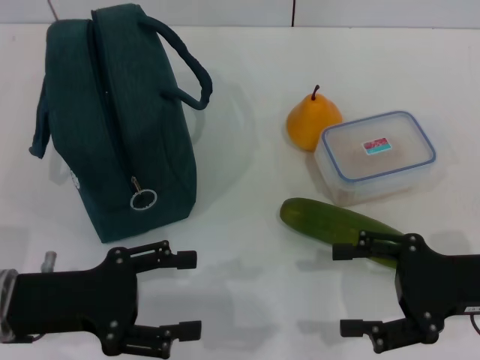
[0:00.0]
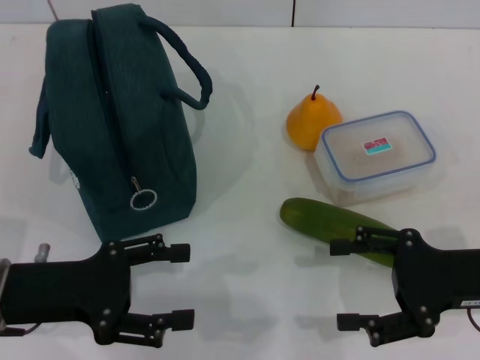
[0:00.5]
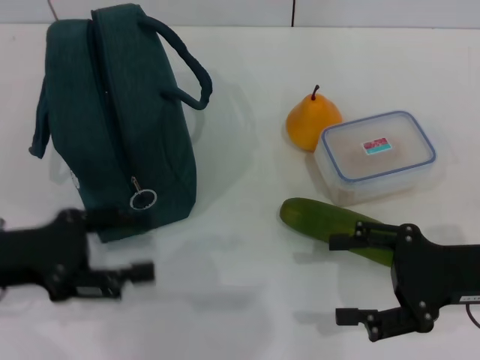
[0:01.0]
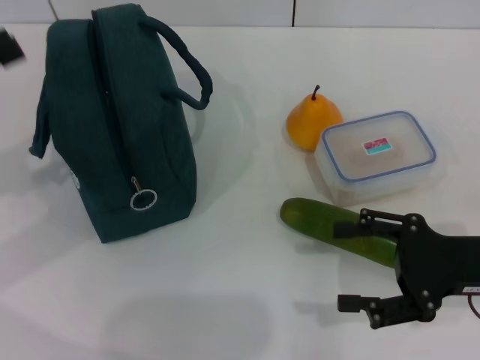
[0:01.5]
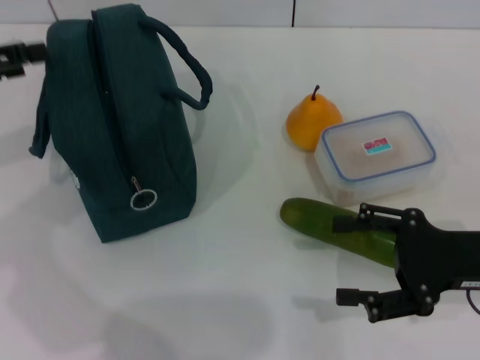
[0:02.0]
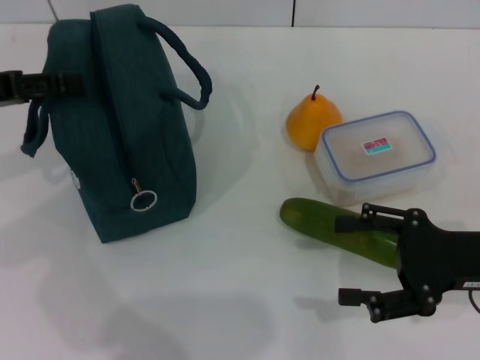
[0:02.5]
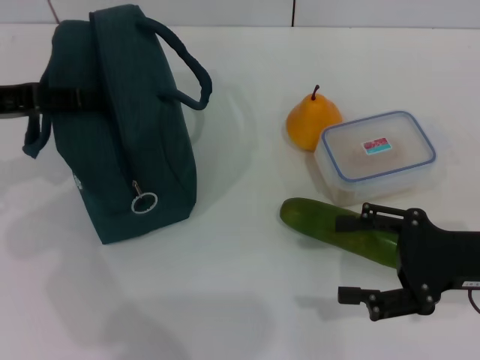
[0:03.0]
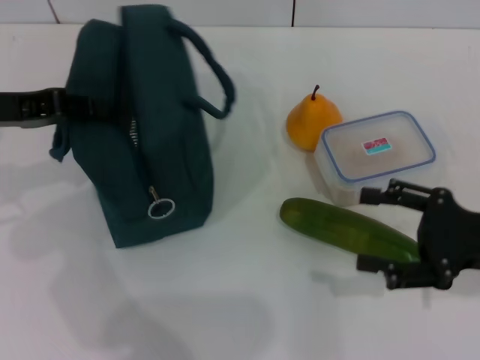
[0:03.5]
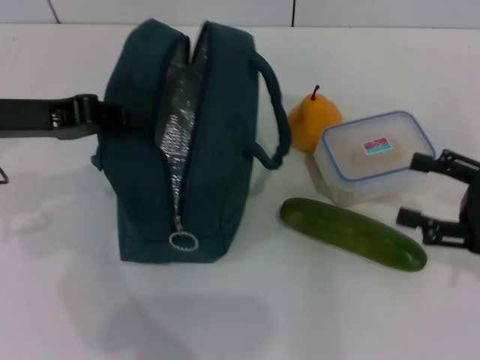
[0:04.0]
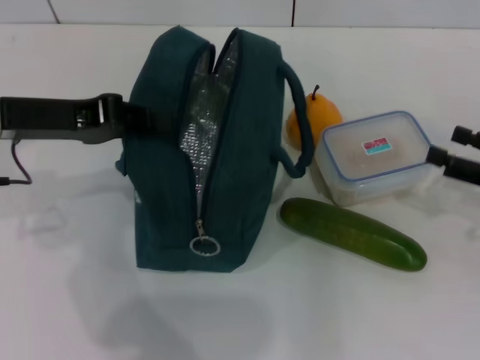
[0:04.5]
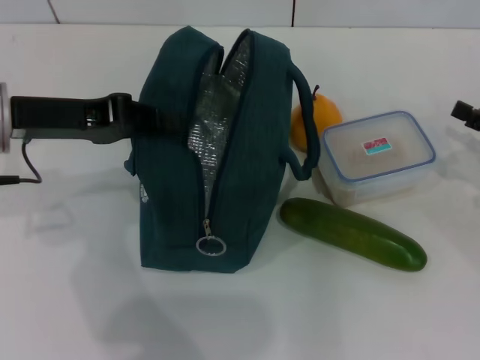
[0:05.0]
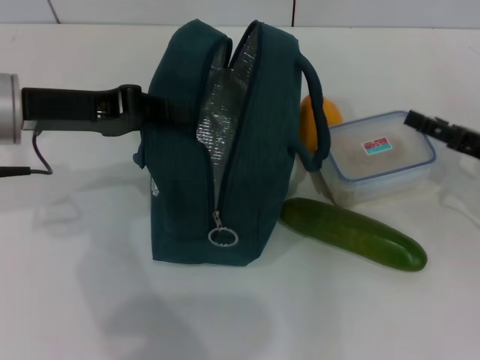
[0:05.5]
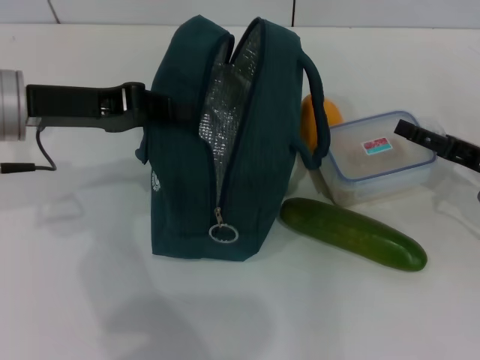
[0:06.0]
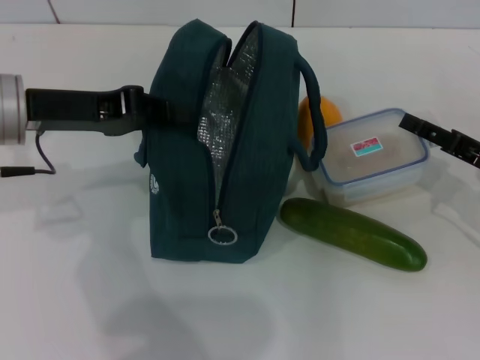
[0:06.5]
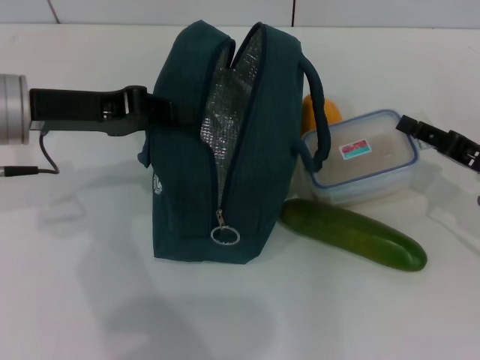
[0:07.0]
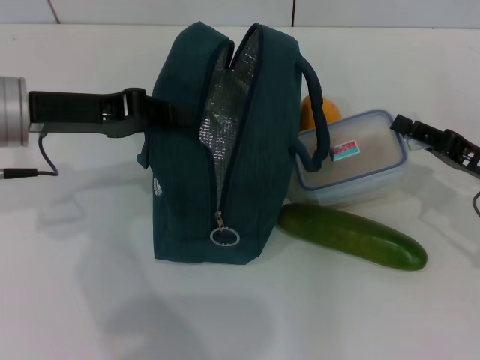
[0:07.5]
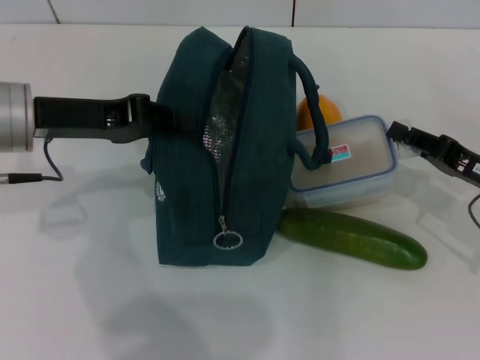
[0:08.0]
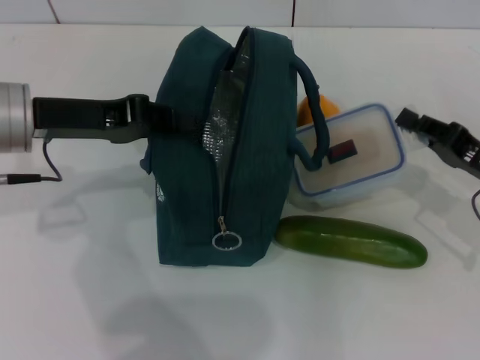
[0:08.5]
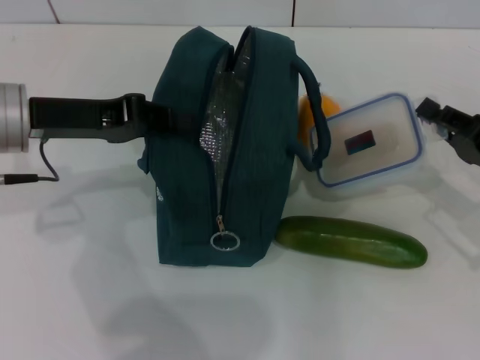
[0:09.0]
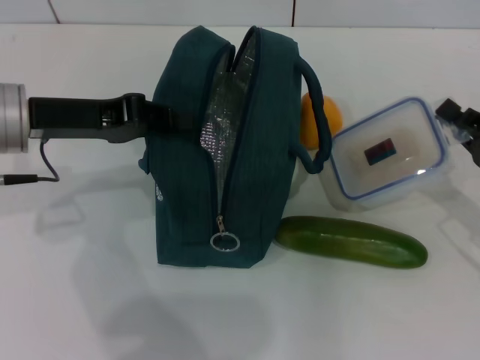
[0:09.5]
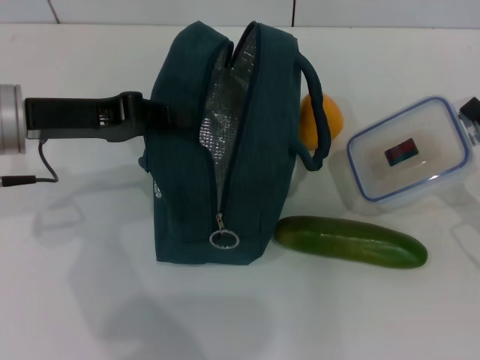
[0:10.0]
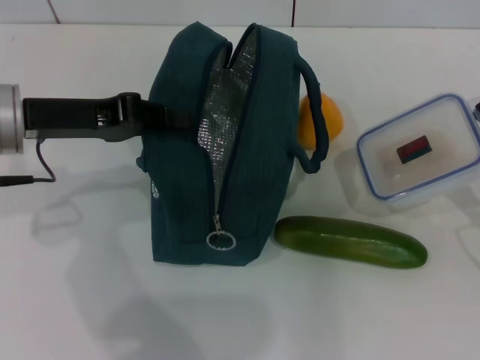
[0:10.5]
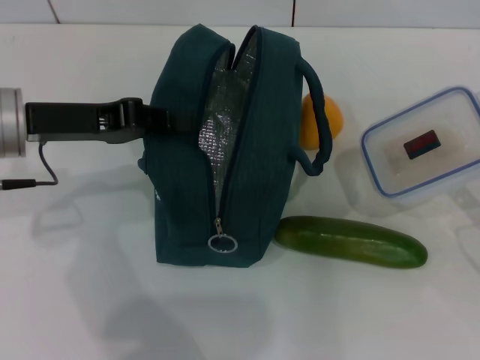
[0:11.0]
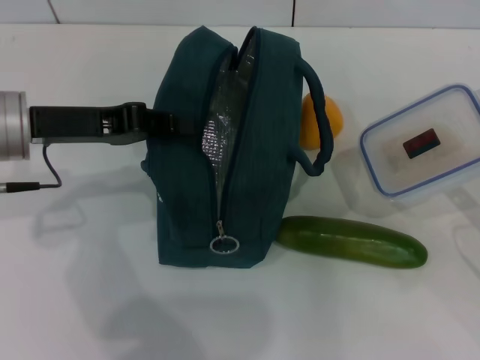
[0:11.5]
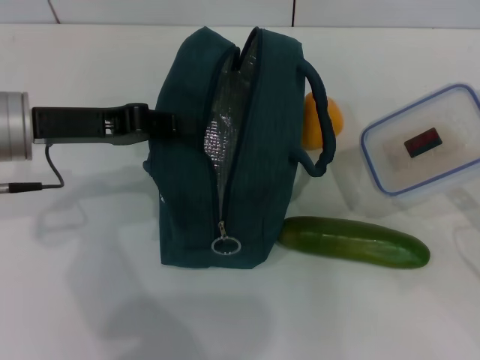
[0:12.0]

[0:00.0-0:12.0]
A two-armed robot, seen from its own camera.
Step, 0:00.0 to 0:03.0: Hold the lunch bag with your left hand.
Step, 0:04.0 to 0:08.0: Pick up the lunch box with your right hand.
0:00.0 to 0:02.0: The left gripper goes some 20 cm upward, forward and to the left.
0:02.0 to 0:04.0: Both grippers move to the right, about 5 cm. The left gripper closes up.
0:04.0 to 0:06.0: The right gripper is displaced forward by roughly 5 cm.
0:06.0 to 0:08.0: The right gripper closes its fingers.
0:10.0 to 0:12.0: The grippers move only a little.

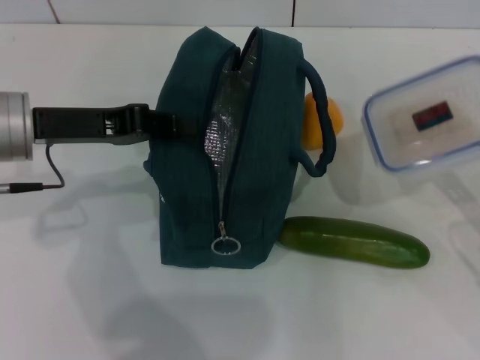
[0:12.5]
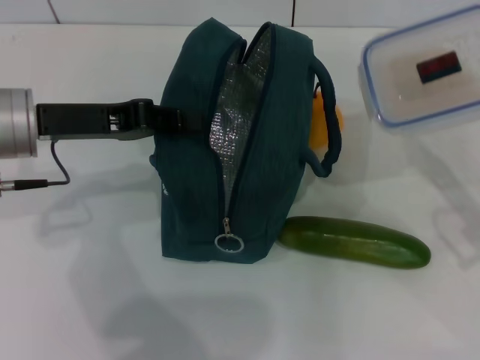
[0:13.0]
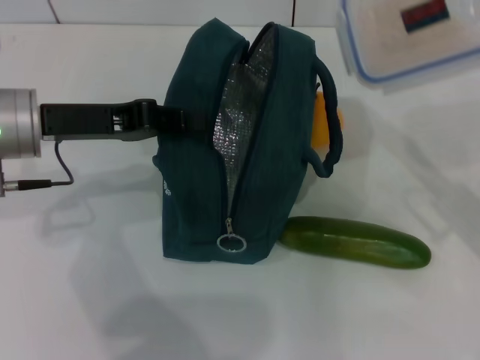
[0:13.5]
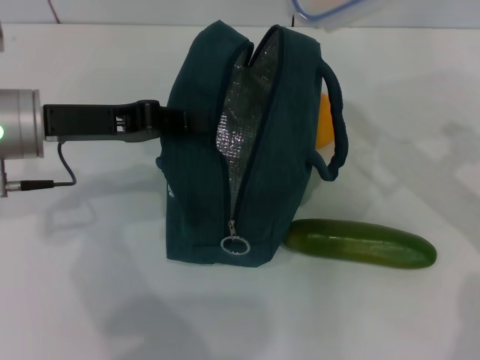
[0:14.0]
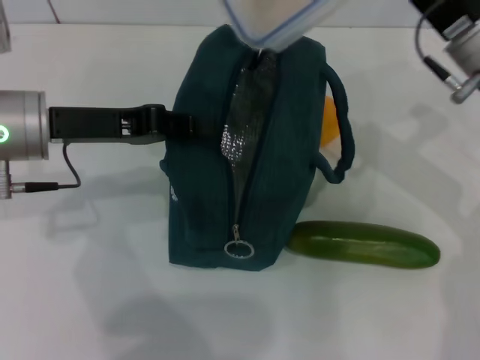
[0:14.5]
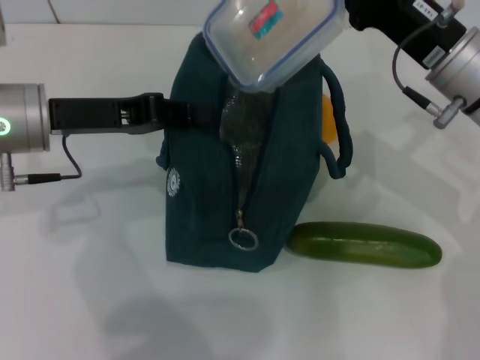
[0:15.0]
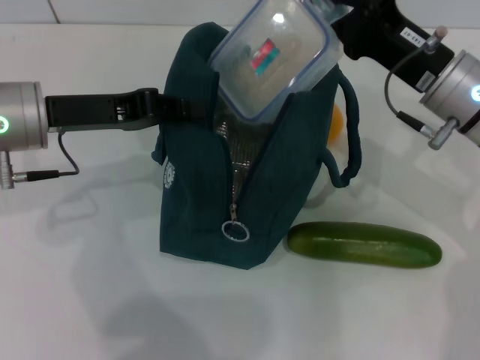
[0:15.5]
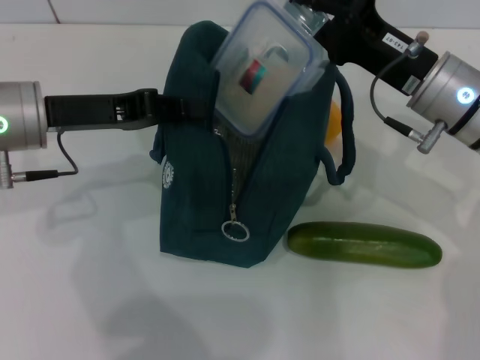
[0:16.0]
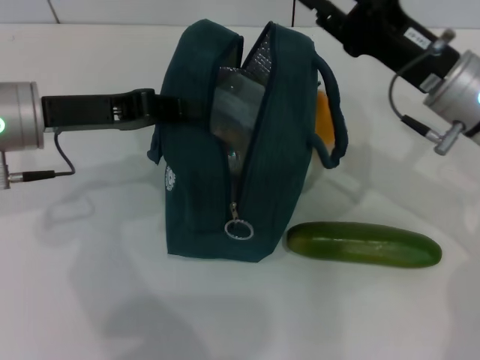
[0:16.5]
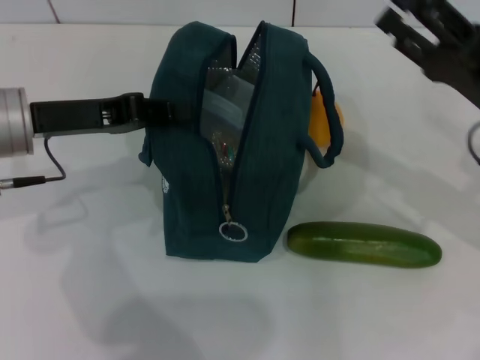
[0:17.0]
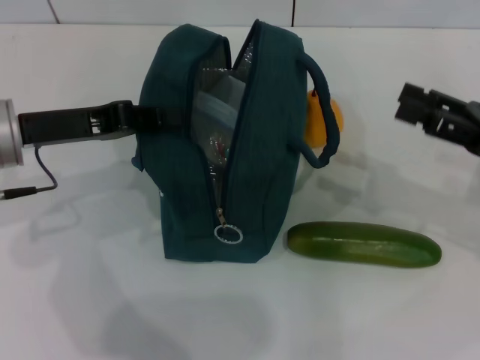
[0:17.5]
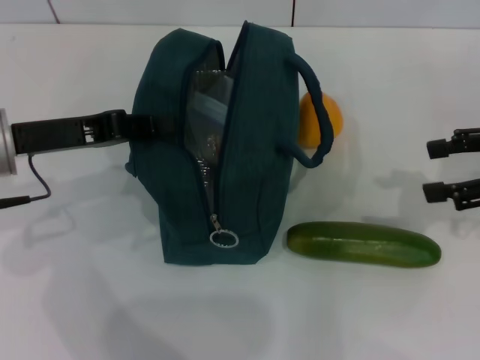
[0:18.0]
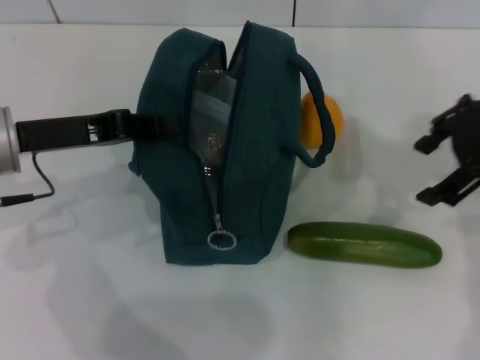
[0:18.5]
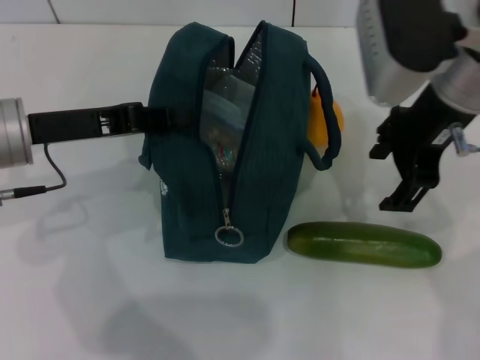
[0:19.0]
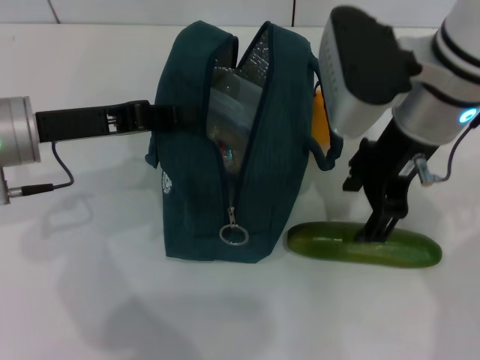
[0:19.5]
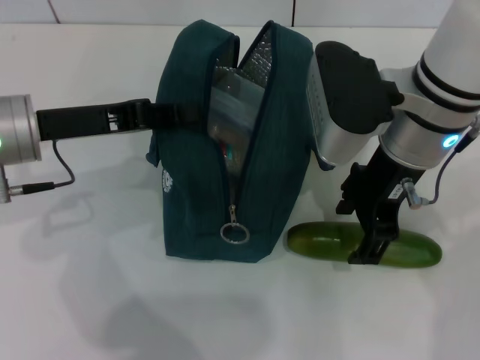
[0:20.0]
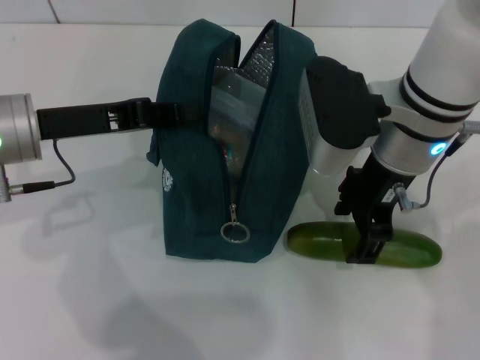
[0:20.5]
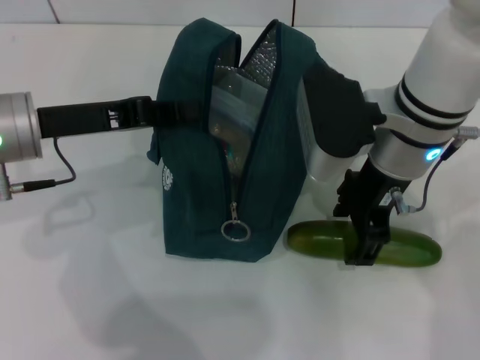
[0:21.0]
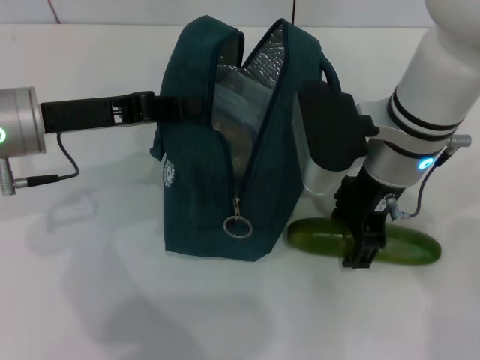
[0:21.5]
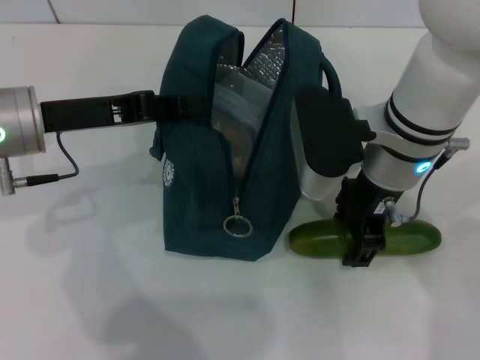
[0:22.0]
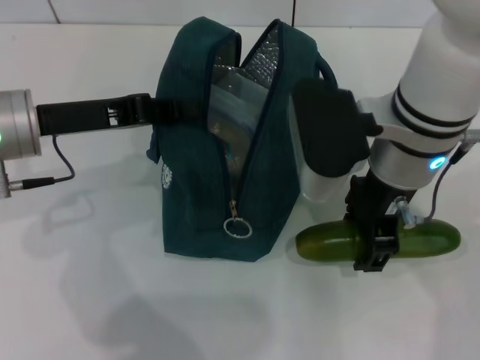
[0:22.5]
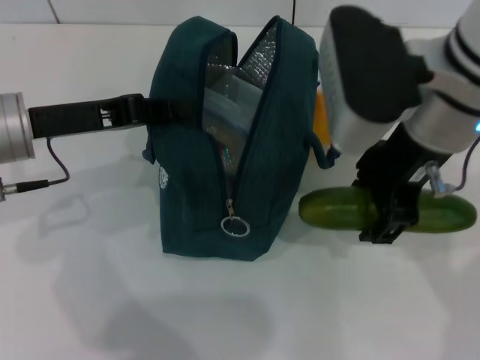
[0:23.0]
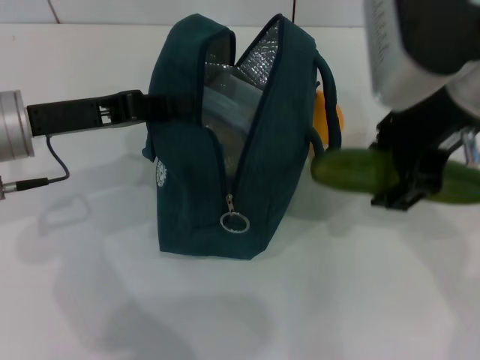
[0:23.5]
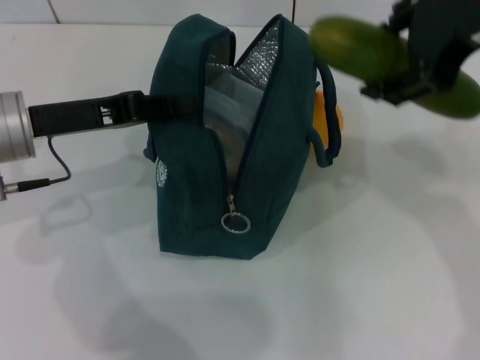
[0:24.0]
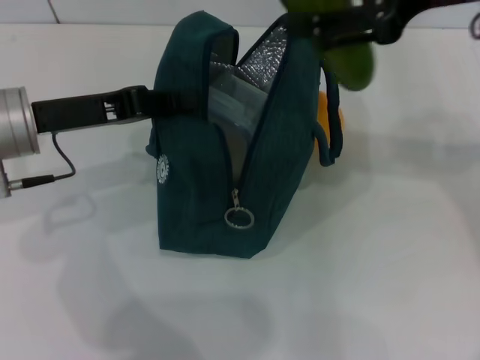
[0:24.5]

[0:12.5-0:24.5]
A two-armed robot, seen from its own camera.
Step, 0:12.5 to 0:16.0: Place the lunch box into the lunch bag with your right hand.
Step, 0:17.0 to 0:21.5: Pick up the cucumber with your right hand.
0:12.5 to 0:14.5: The right gripper goes roughly 20 cm forward, to the left and upward.
0:16.5 to 0:18.5: The right gripper heads upward, covering roughly 10 cm, moves about 15 cm to the right and comes back, and opens its fingers.
0:18.5 to 0:20.5: The right gripper moves to the left and downward, about 15 cm.
0:20.5 to 0:22.5: The grippers stay close to where they were, moving slightly.
0:22.5 to 0:24.5: The right gripper travels upward and to the right by about 15 cm.

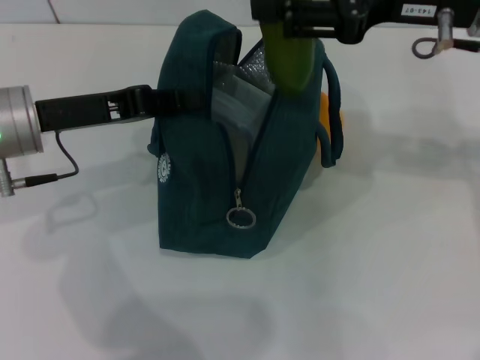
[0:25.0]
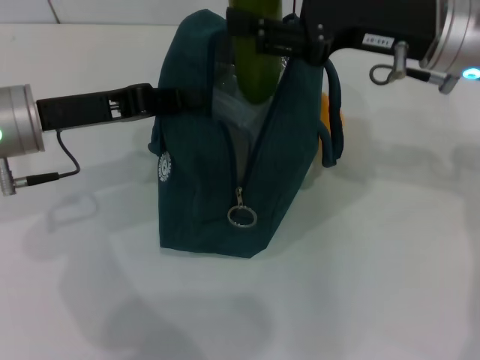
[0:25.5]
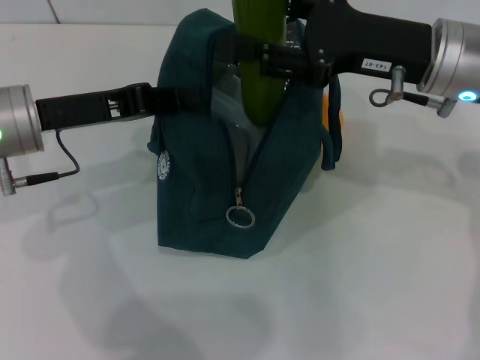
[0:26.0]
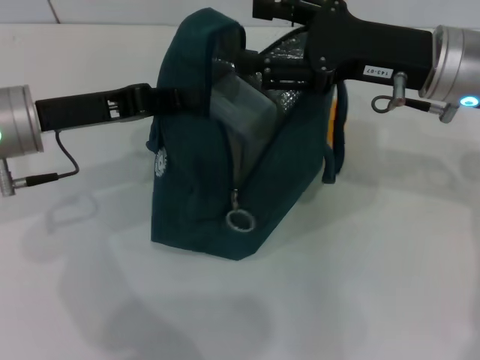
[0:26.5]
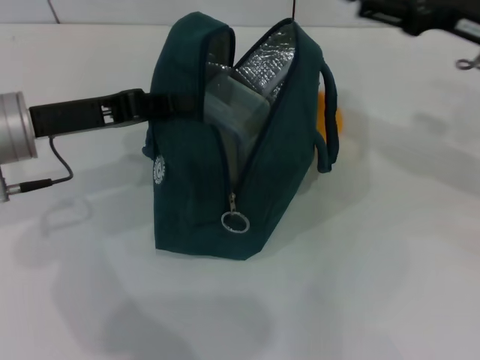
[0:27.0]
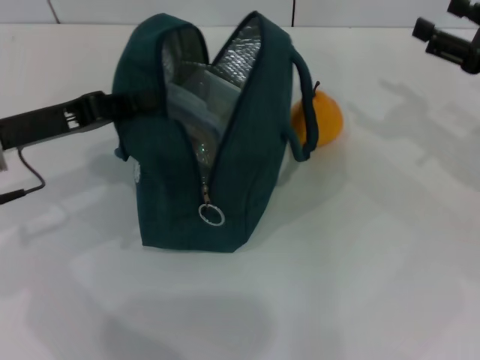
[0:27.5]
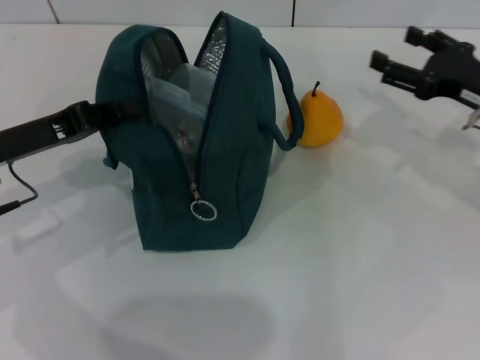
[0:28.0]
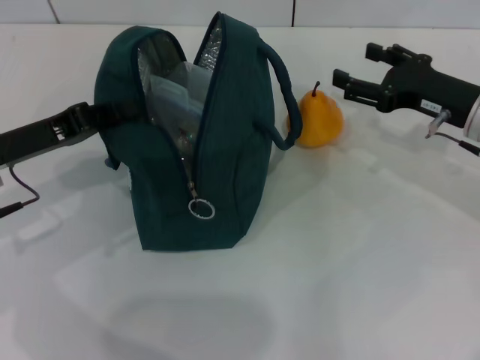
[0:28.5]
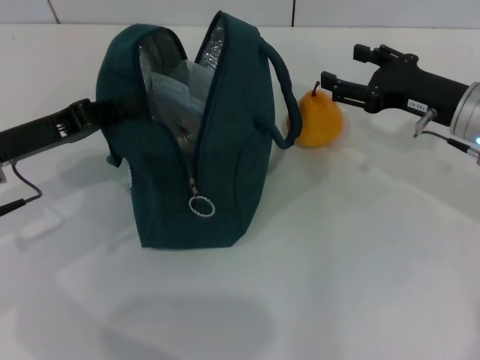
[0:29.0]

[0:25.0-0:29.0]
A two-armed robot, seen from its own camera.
0:25.0 to 0:27.0: The right gripper shifts approximately 10 cm to the right and downward.
0:27.0 to 0:29.0: The left gripper ends up approximately 5 cm from where it was. Meanwhile the right gripper moves downward, approximately 10 cm.
